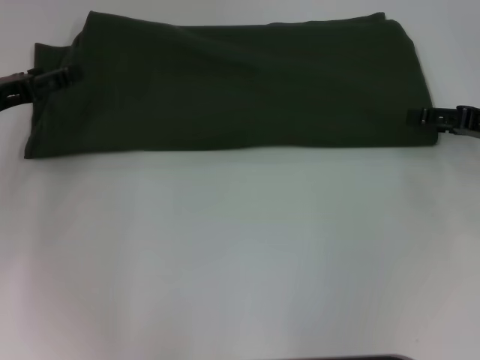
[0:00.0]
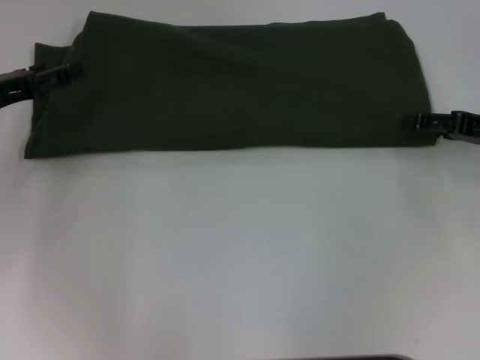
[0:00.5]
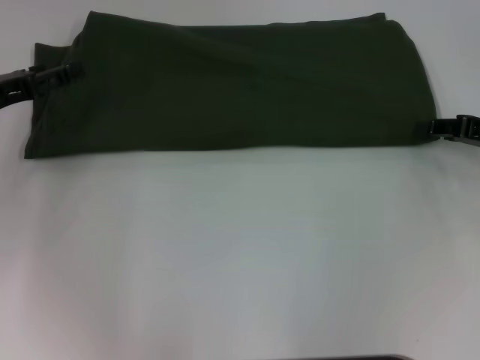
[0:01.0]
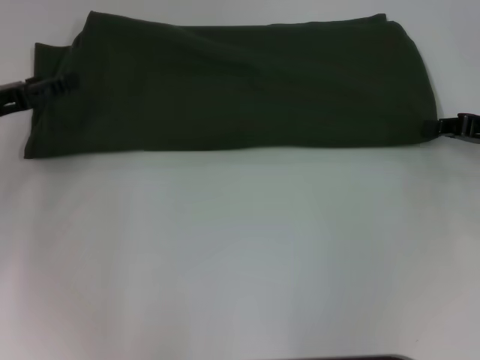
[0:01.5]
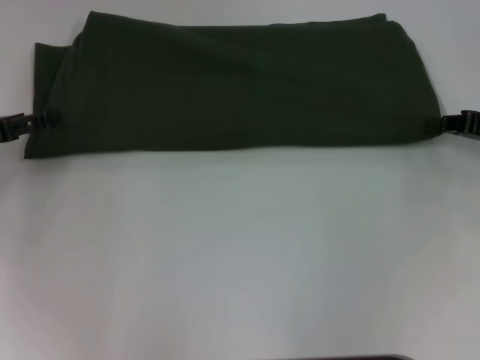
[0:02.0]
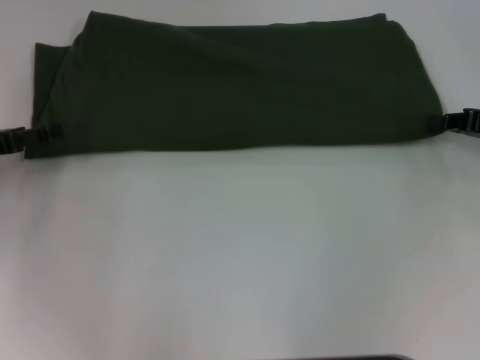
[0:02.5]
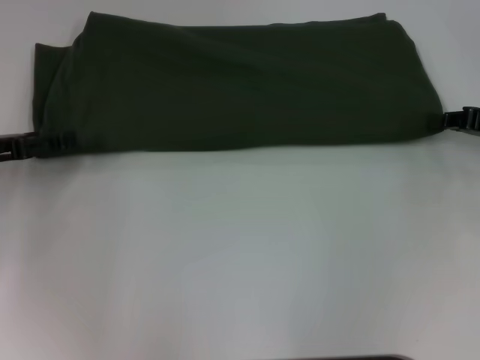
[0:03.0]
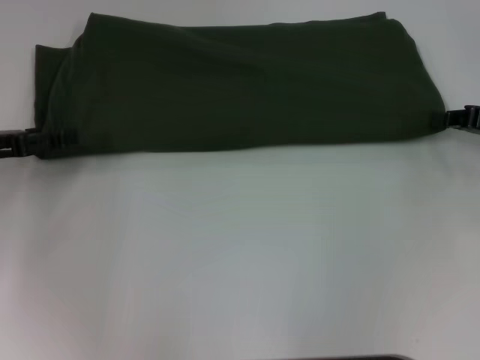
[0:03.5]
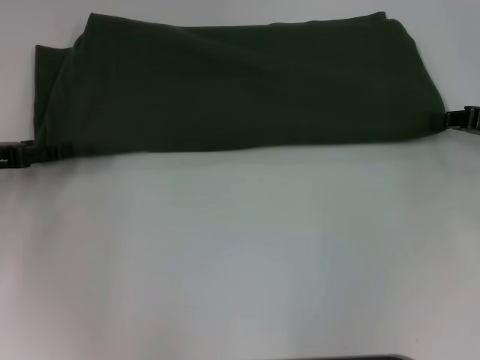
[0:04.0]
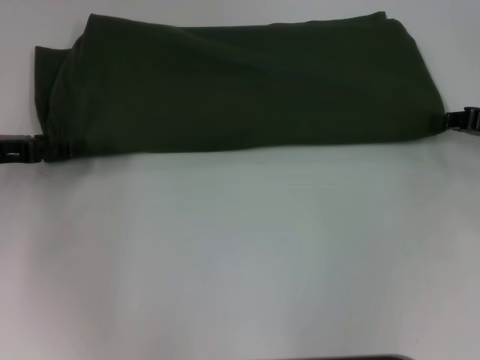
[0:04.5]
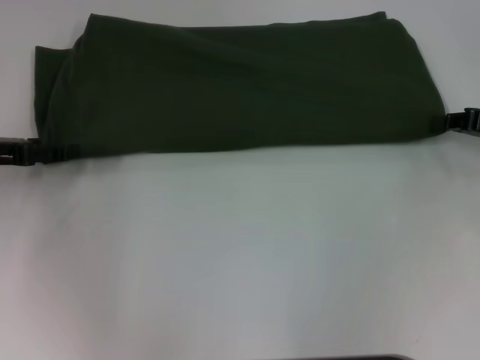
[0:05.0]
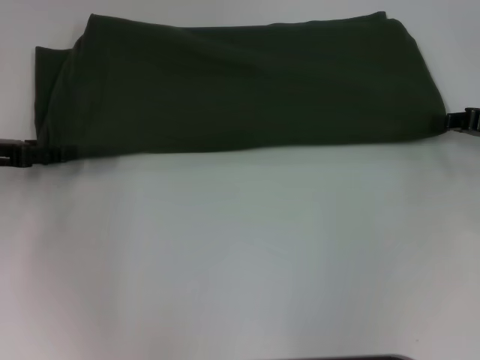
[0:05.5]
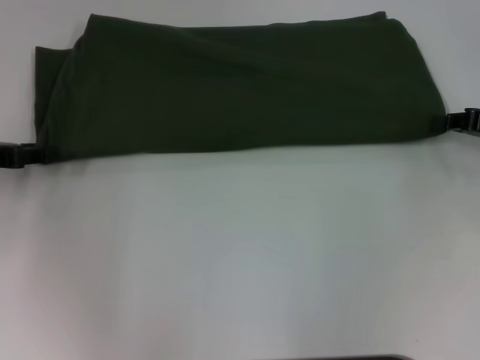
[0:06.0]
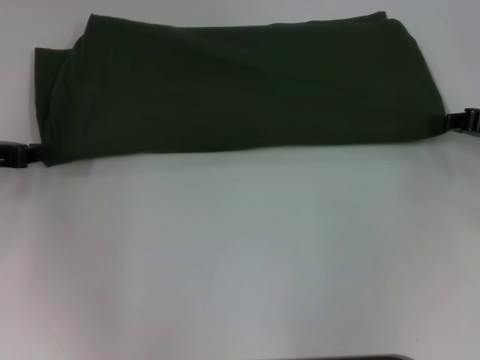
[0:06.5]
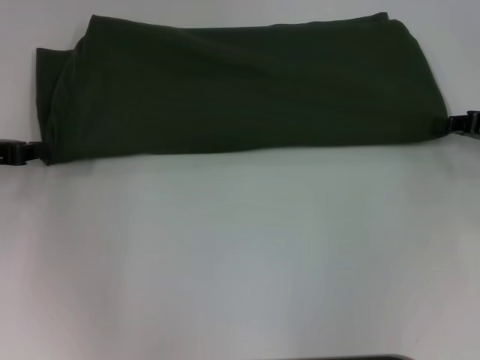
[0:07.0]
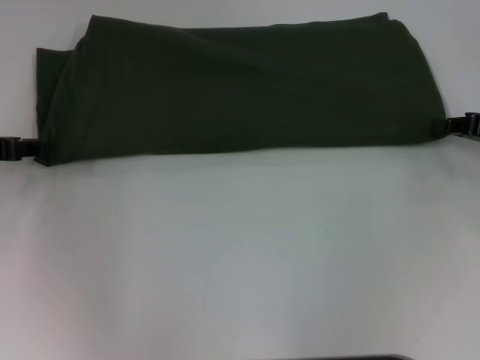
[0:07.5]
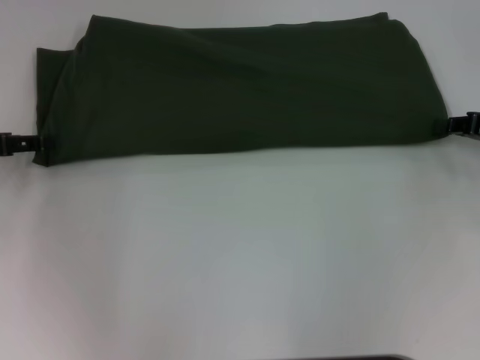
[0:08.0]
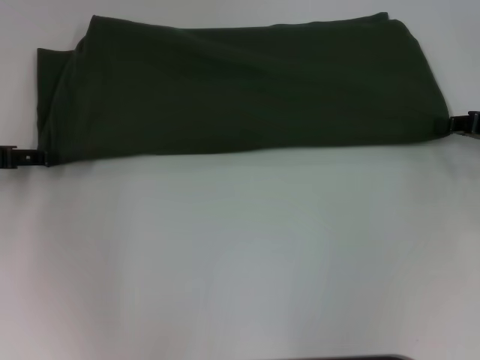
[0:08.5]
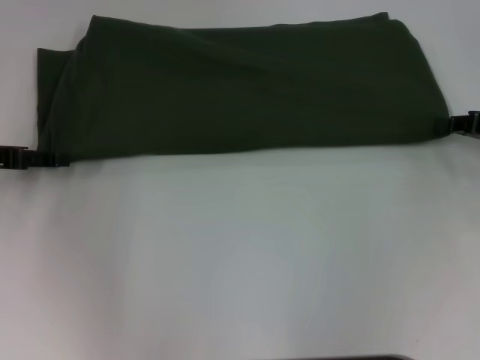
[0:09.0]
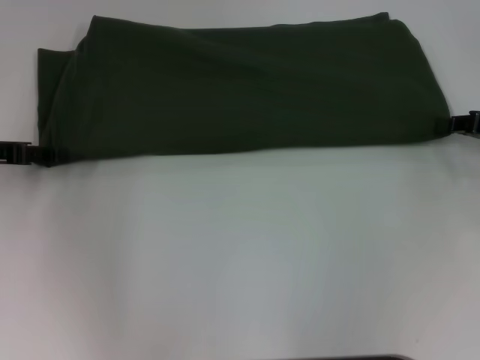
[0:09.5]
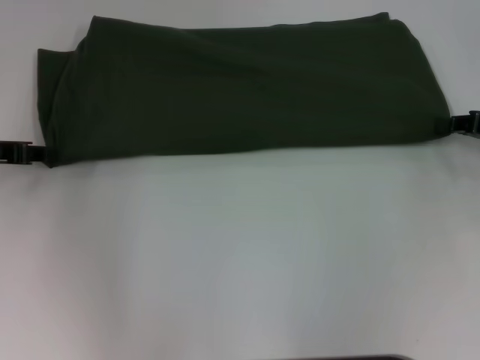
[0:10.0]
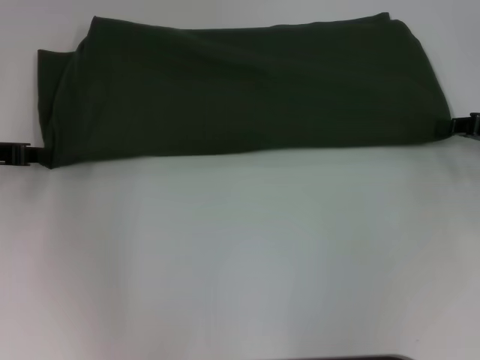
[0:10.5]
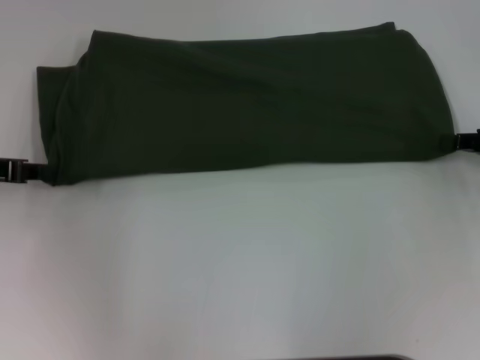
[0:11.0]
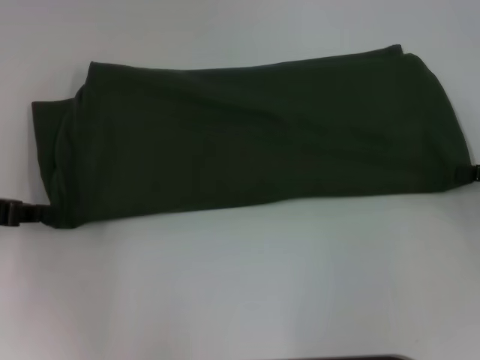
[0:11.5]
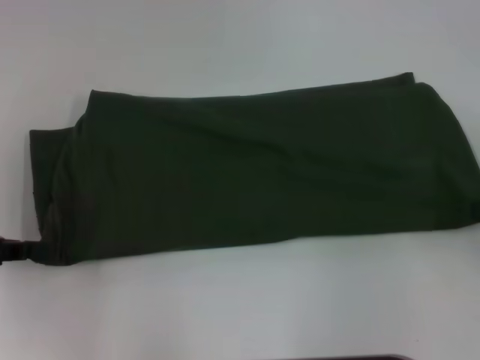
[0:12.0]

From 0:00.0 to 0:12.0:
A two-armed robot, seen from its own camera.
From 0:00.0 to 0:02.0: The right gripper closes up.
From 0:02.0 to 0:04.0: The grippers move only a little.
From 0:06.0 to 0:08.0: The left gripper closes, then reopens.
From 0:08.0 to 0:10.0: The left gripper closes its fingers.
From 0:10.0 to 0:12.0: The grippers both shift backward by approximately 10 cm. The left gripper closes.

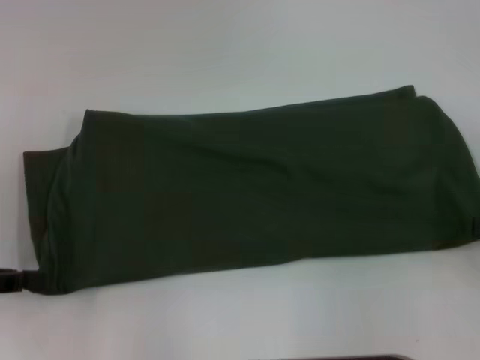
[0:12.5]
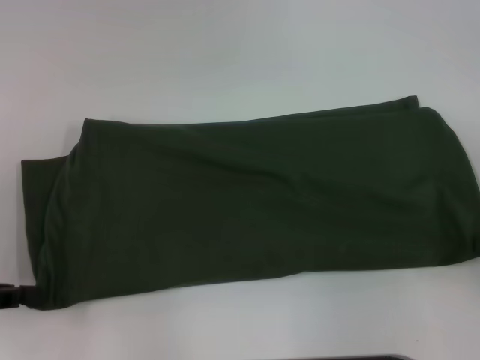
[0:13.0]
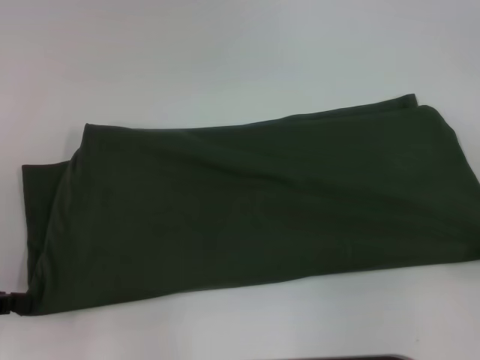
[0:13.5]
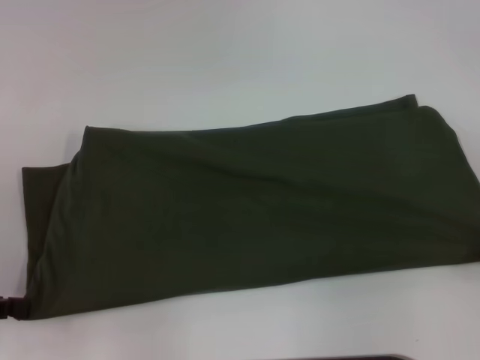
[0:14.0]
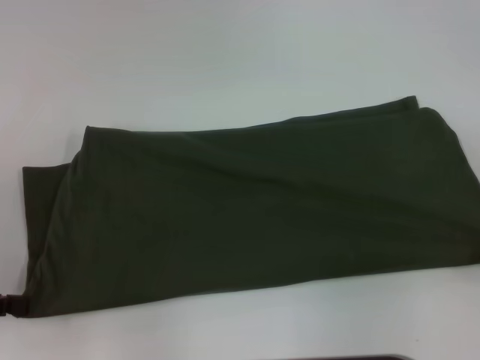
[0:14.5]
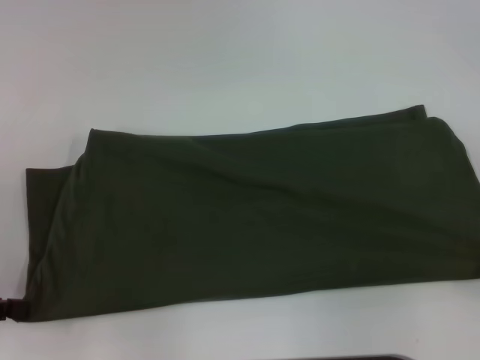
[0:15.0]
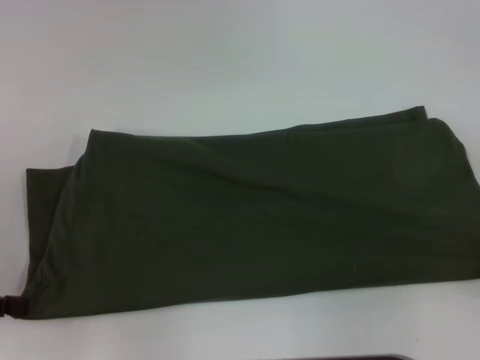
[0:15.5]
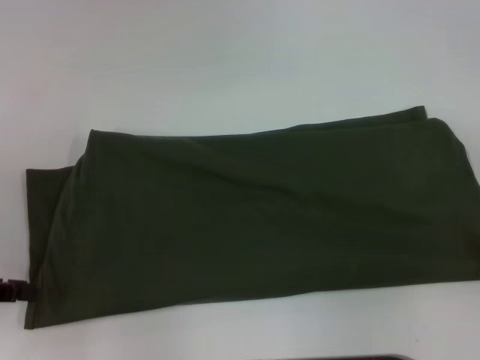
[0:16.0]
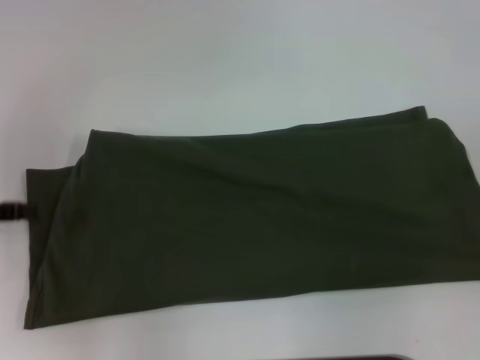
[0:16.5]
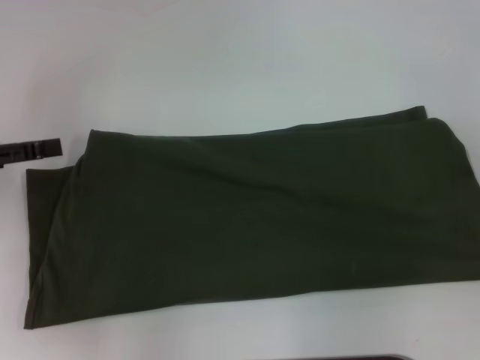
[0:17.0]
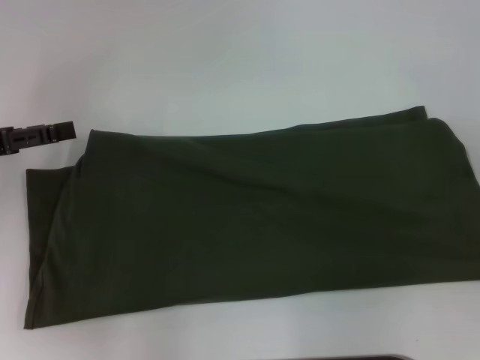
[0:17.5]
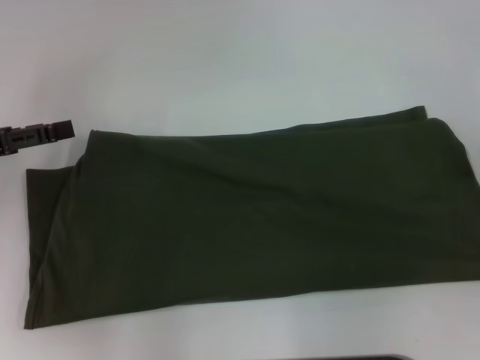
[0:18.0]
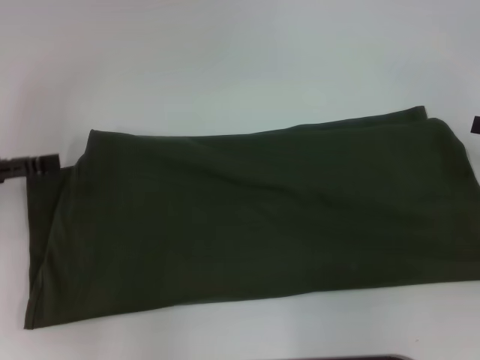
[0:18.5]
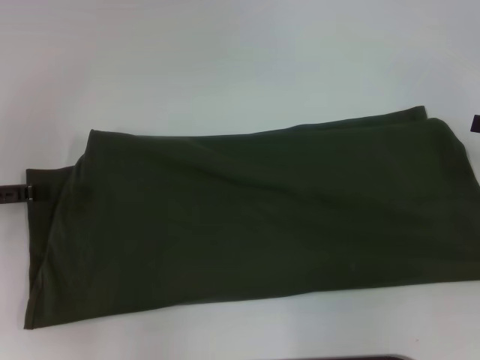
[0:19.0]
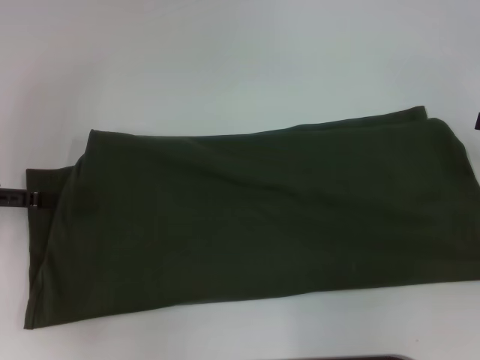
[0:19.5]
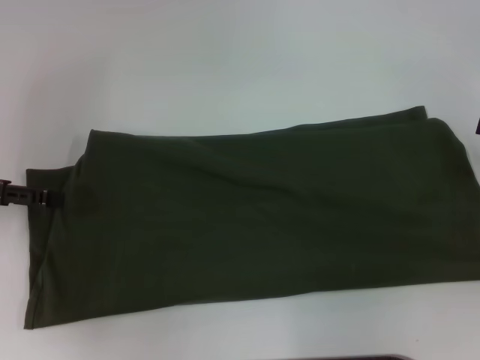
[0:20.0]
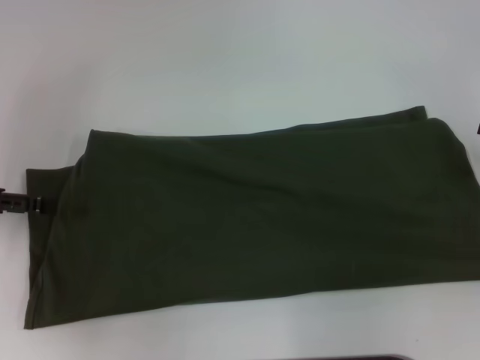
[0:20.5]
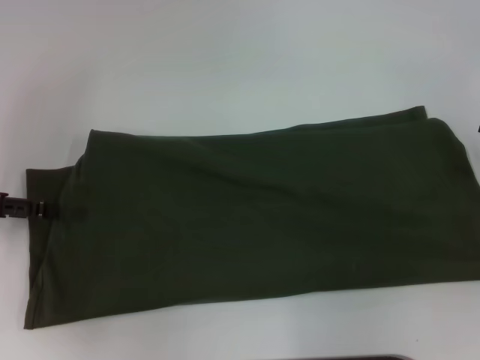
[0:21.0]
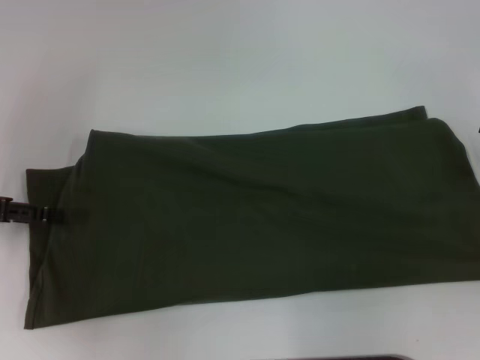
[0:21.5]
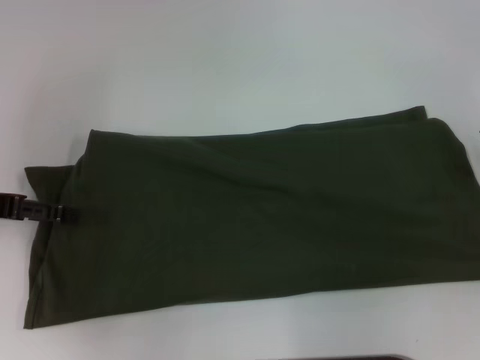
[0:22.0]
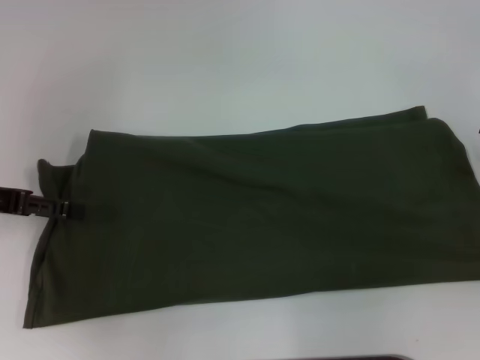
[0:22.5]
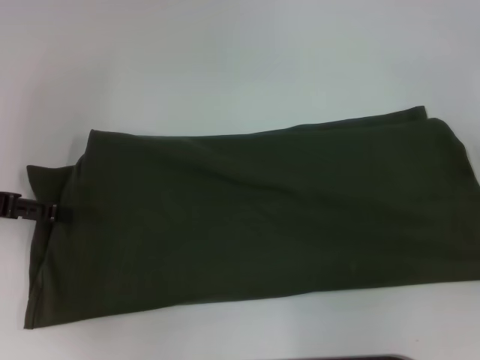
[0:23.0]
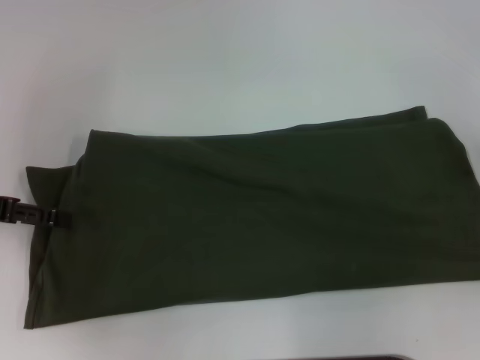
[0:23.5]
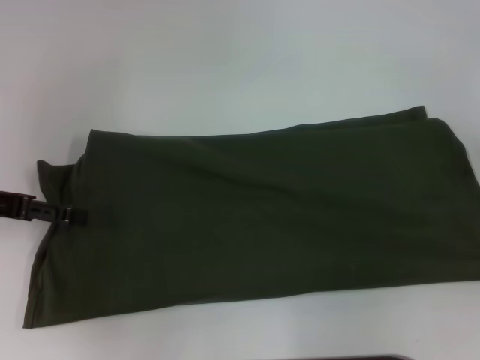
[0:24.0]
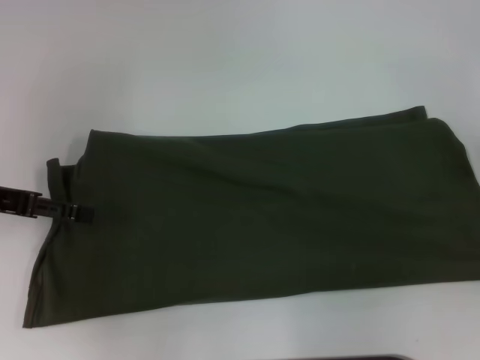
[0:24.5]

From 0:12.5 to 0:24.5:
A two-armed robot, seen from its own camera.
From 0:12.5 to 0:14.5: The grippers make only small movements.
From 0:14.5 to 0:16.5: The right gripper shifts by roughly 5 cm, and opens. Meanwhile the left gripper is displaced forward by roughly 5 cm, and opens its fingers.
From 0:16.5 to 0:18.5: The left gripper opens.
From 0:18.5 to 0:22.5: The grippers stay close to where they were, moving slightly.
From 0:22.5 to 0:24.5: The two grippers keep their place.

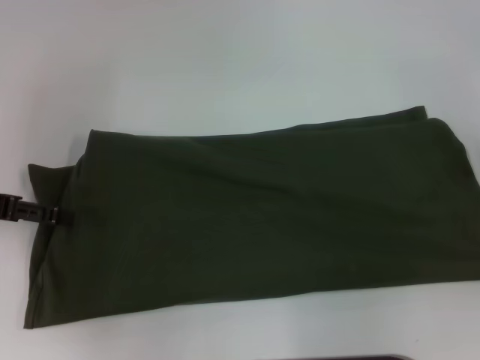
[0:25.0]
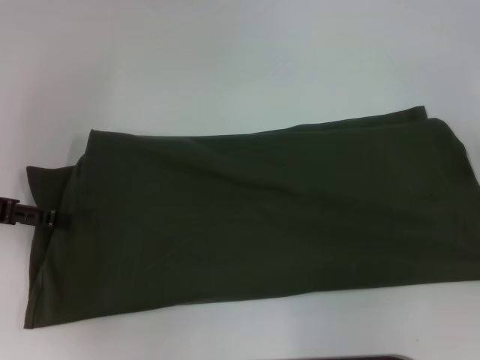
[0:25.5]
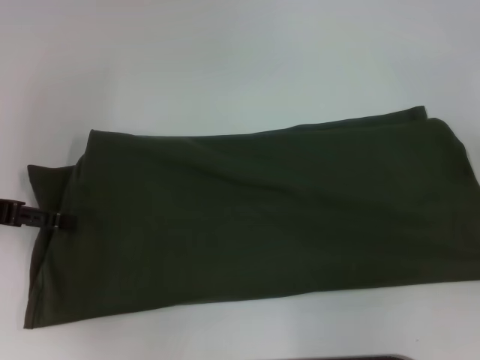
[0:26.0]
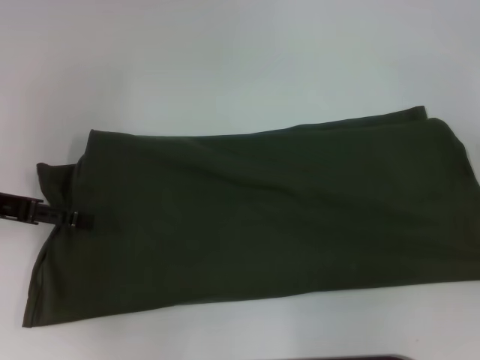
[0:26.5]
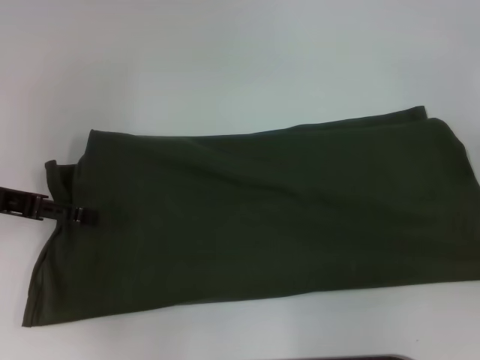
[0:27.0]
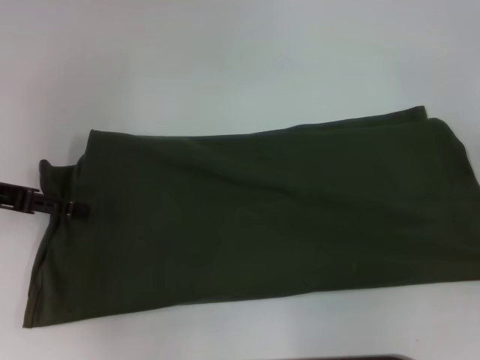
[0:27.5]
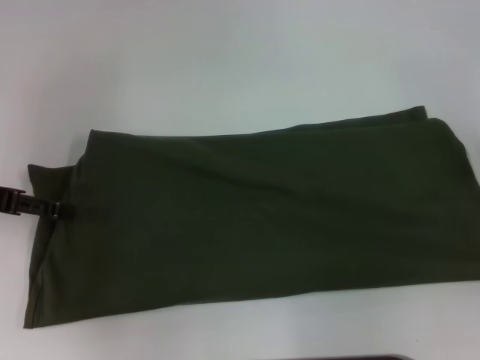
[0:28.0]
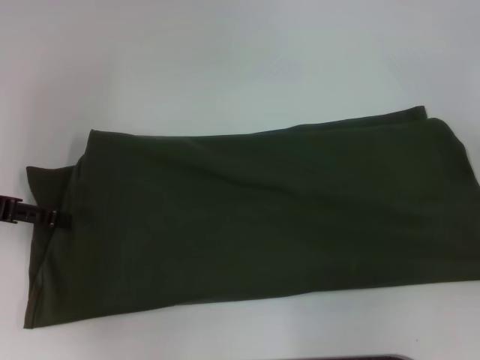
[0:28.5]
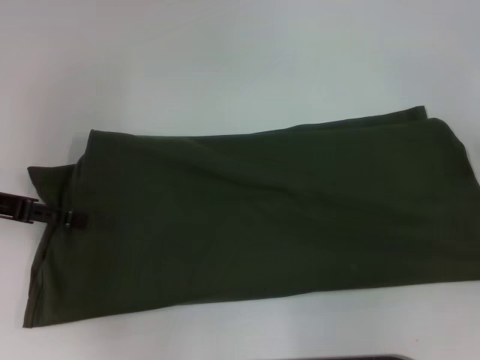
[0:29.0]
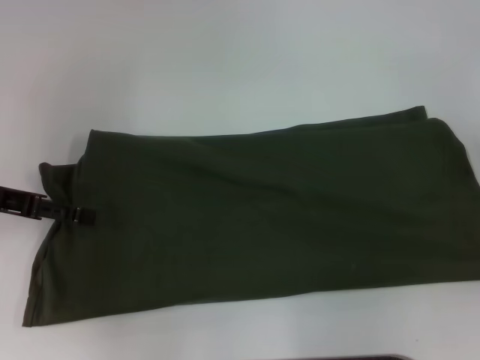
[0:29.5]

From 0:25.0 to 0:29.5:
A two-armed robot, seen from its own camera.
From 0:25.0 to 0:27.0: The grippers move only a little.
